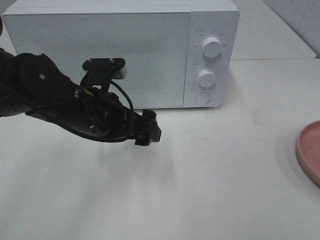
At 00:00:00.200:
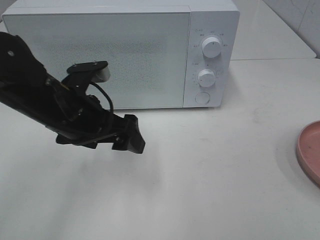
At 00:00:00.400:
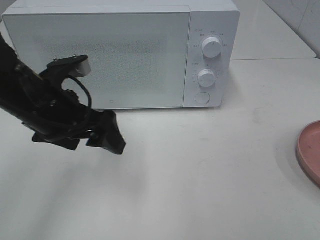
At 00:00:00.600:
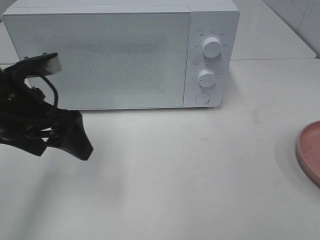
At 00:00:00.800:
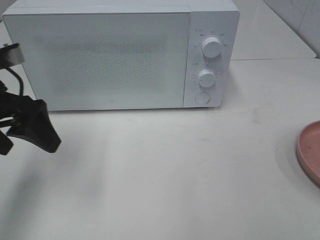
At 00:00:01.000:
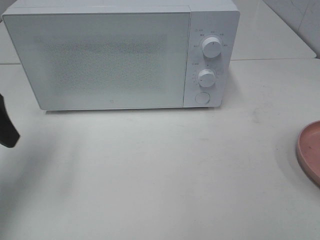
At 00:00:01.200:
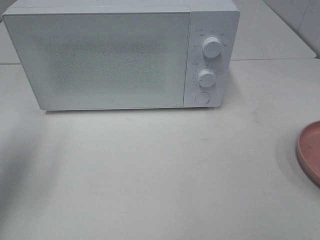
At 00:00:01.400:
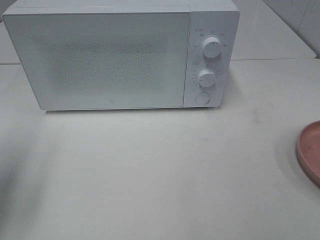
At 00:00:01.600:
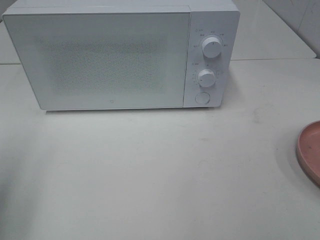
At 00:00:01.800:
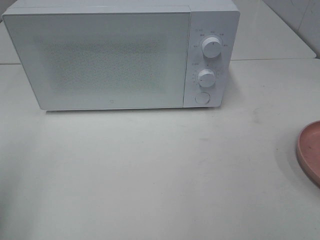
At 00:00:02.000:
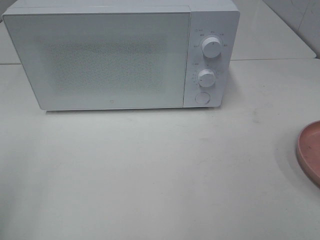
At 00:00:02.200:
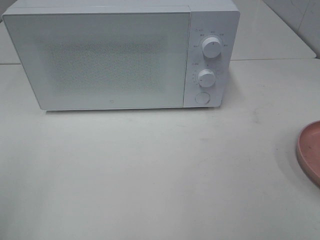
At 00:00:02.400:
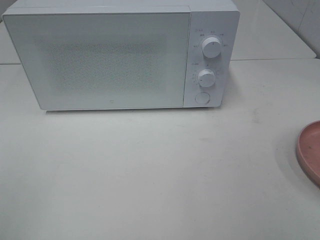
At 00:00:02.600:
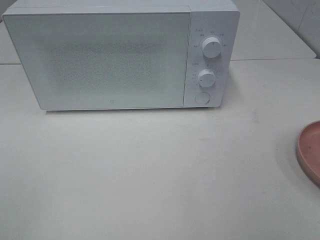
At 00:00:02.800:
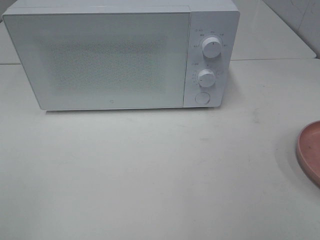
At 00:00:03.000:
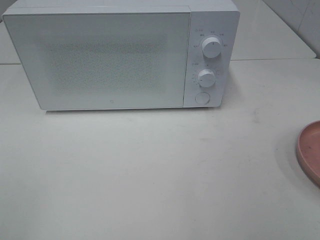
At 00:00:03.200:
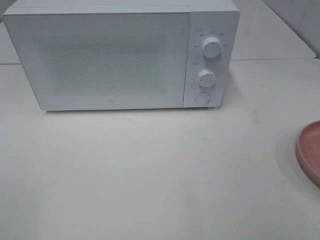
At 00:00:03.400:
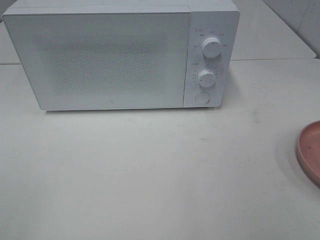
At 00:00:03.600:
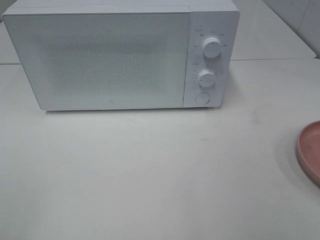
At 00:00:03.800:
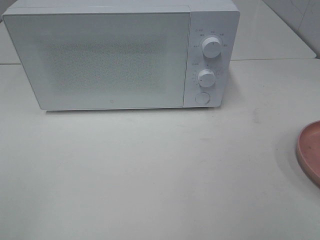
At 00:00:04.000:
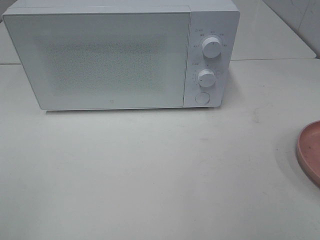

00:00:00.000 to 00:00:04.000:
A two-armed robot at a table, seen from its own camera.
Task of the whole recording: Heat the burger.
00:00:00.000 to 00:00:01.400: The left gripper goes approximately 25 cm to the left and upward.
00:00:01.400 to 00:00:02.600: The left gripper moves backward, about 20 cm.
00:00:02.600 to 00:00:04.000: Both grippers stay about where they are.
